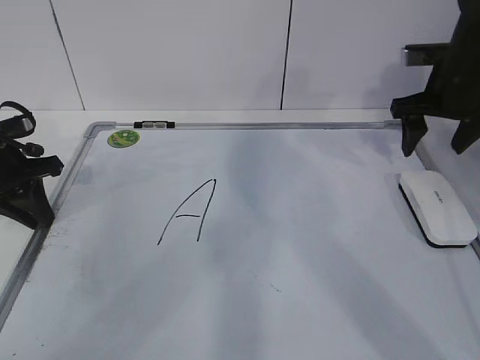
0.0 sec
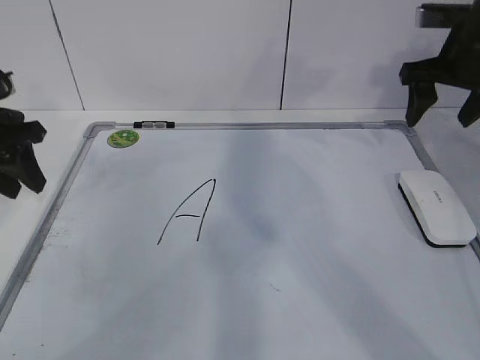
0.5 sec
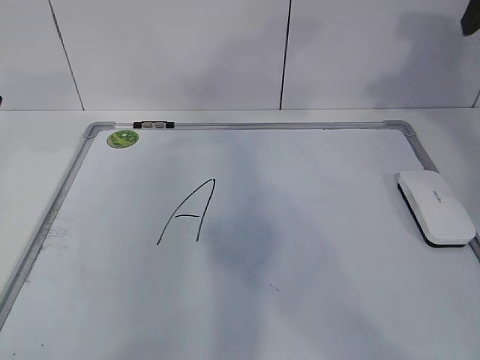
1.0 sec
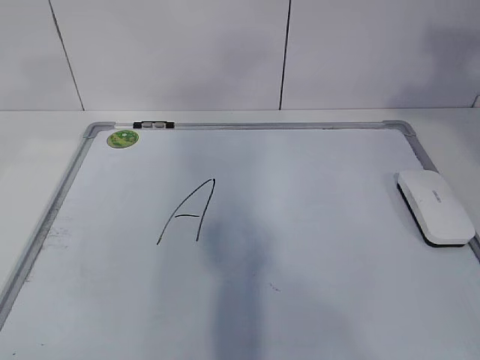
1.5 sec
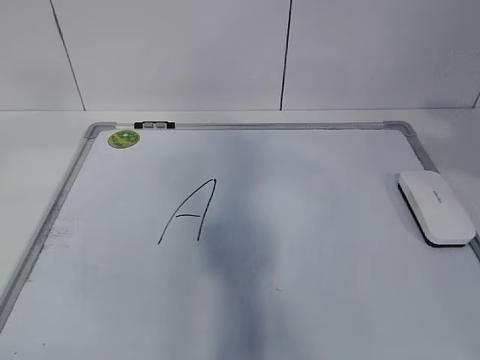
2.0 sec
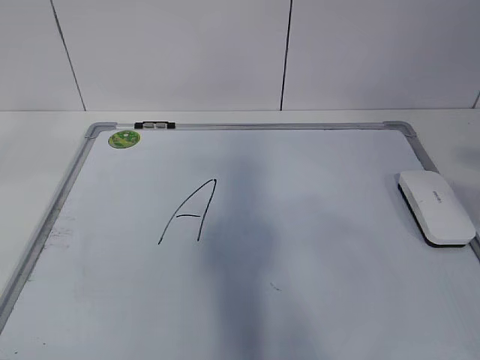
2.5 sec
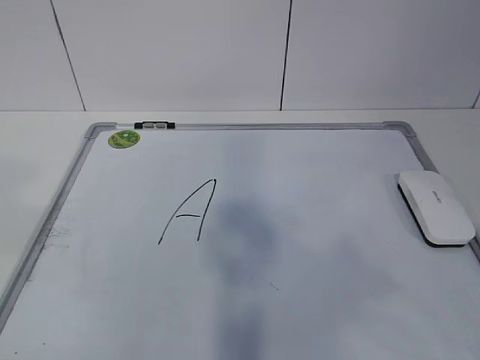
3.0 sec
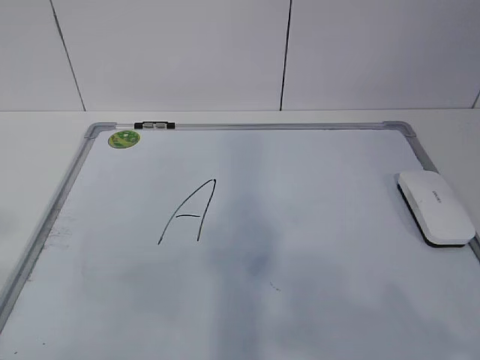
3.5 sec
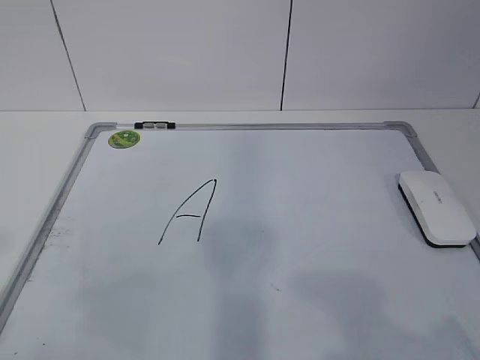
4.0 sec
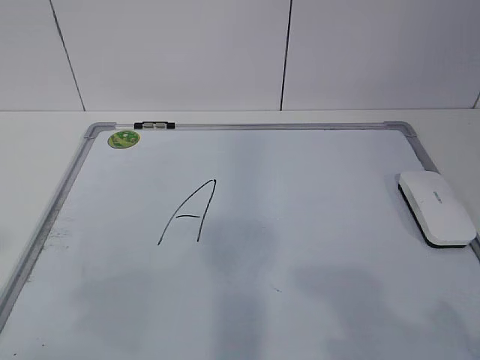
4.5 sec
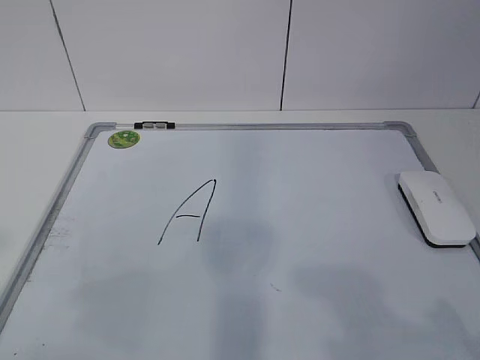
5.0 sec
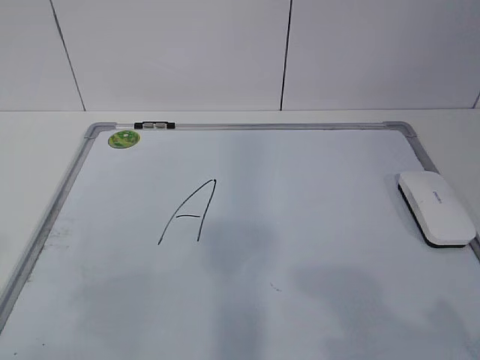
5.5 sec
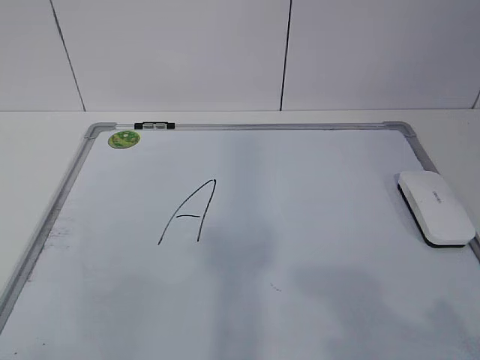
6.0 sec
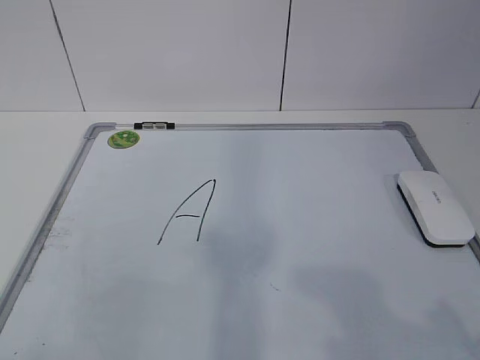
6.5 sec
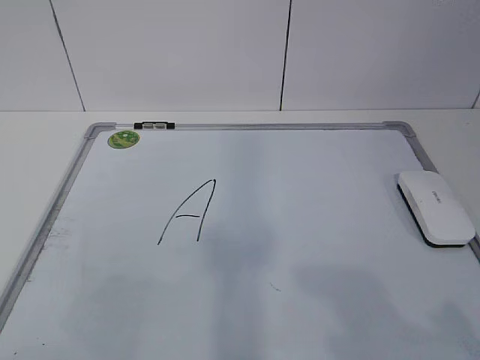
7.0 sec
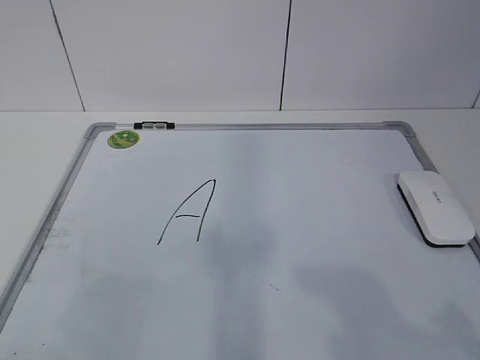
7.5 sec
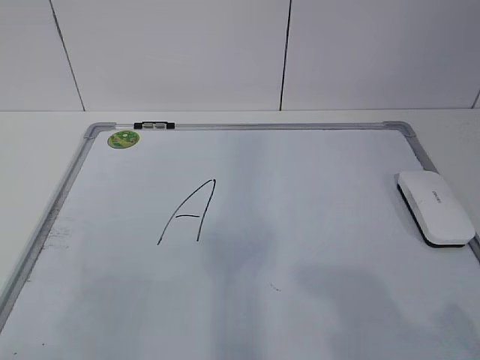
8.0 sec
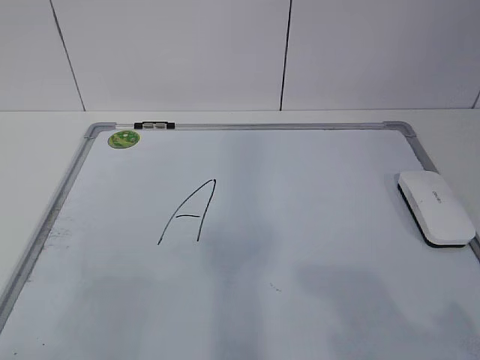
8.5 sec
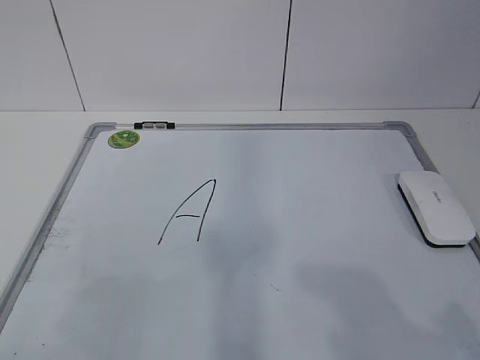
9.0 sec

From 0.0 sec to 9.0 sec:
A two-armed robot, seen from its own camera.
Task of the whole recording: pick up the eraser on the blackboard and erase the letter "a".
From 0.0 sec to 2.0 sec: The left gripper travels upward and backward by roughly 35 cm, and opens its fingers; the right gripper shifts some 40 cm backward and upward, and closes.
From 2.0 sec to 4.5 sec: Both grippers travel together downward and backward, roughly 20 cm.
